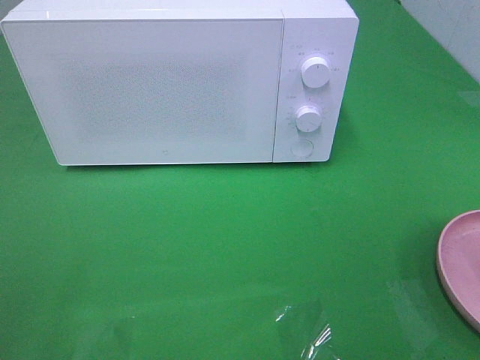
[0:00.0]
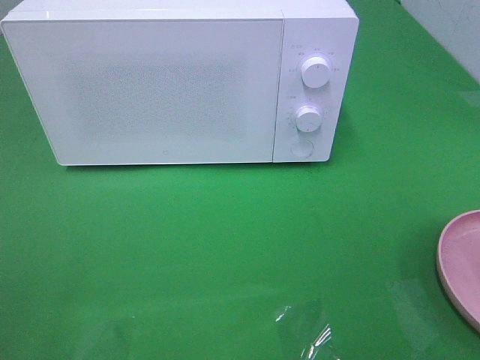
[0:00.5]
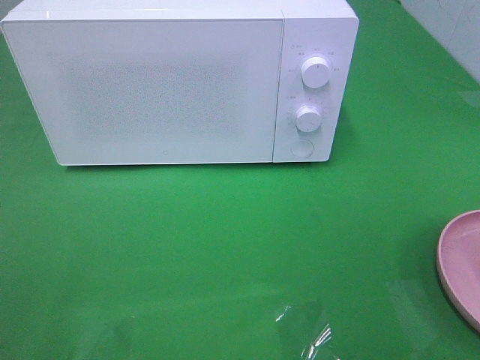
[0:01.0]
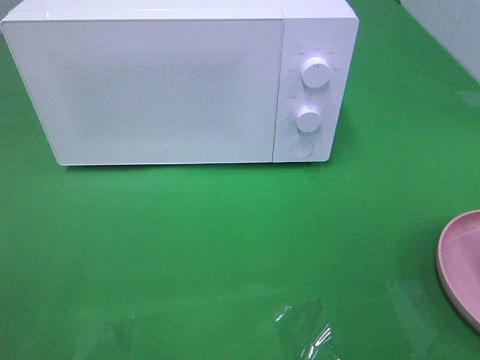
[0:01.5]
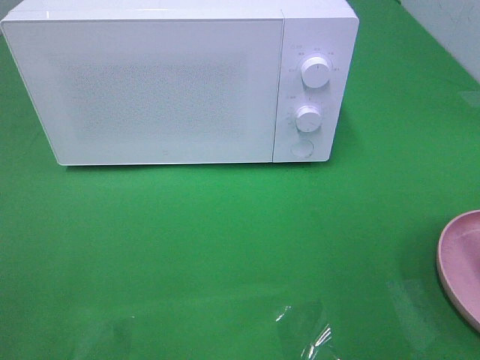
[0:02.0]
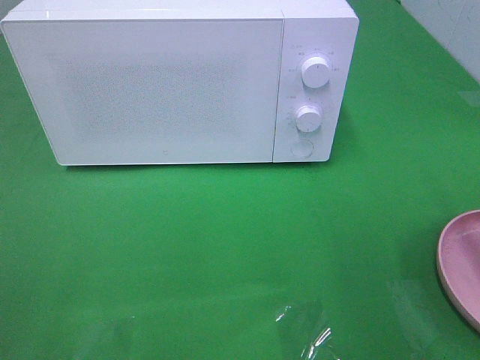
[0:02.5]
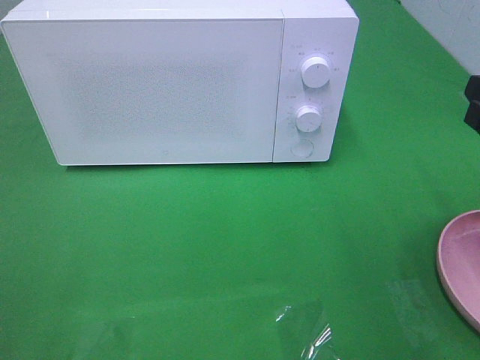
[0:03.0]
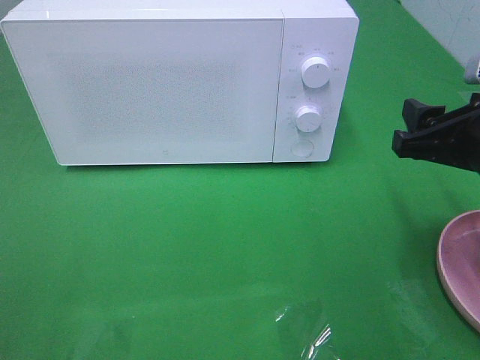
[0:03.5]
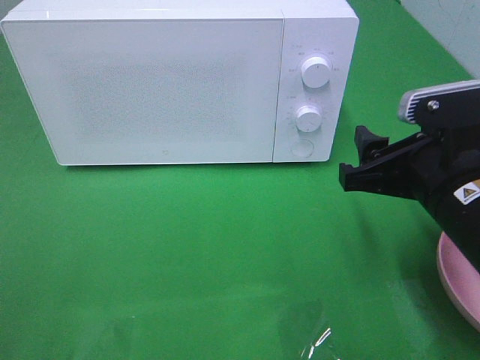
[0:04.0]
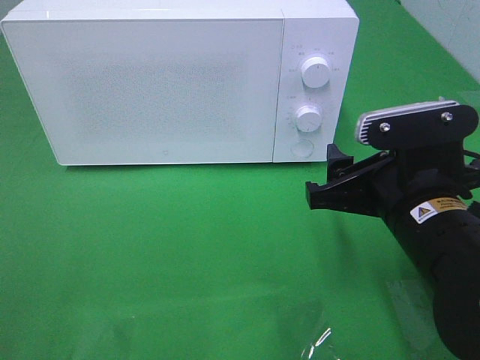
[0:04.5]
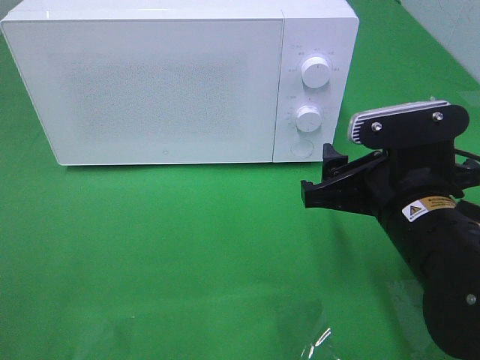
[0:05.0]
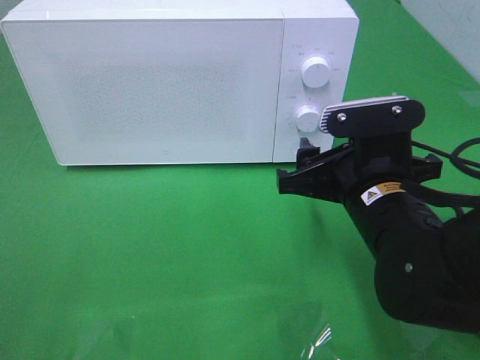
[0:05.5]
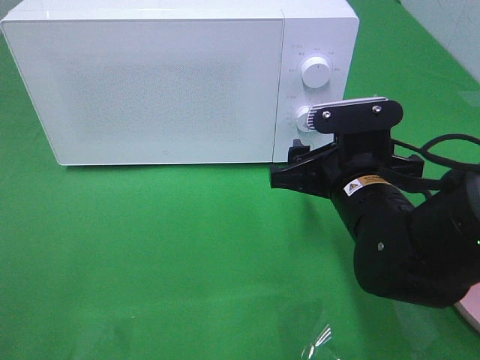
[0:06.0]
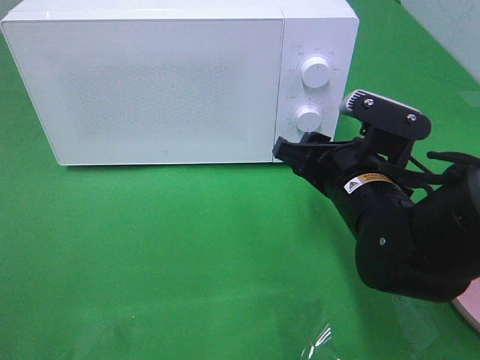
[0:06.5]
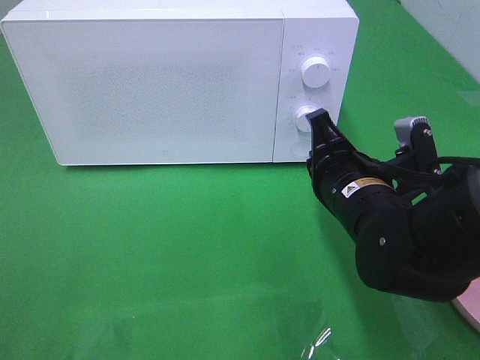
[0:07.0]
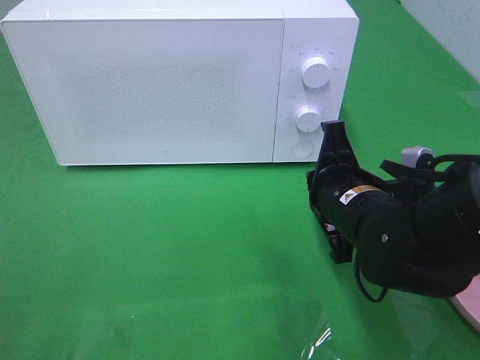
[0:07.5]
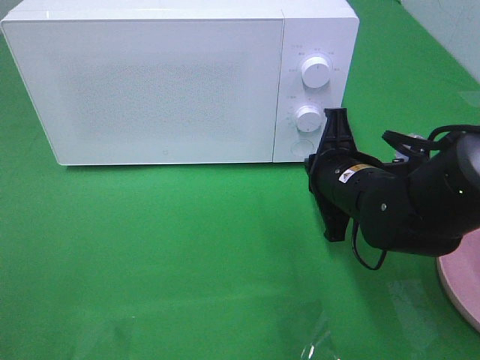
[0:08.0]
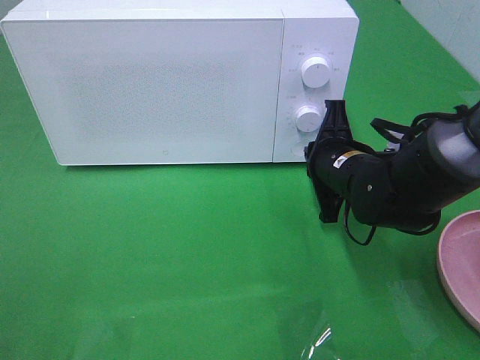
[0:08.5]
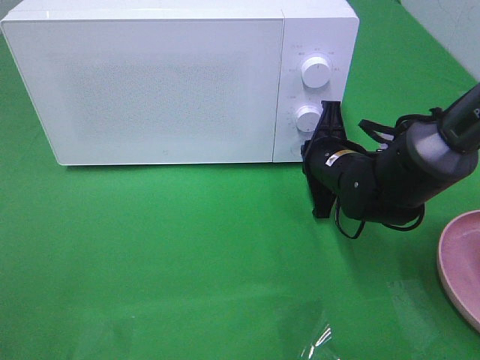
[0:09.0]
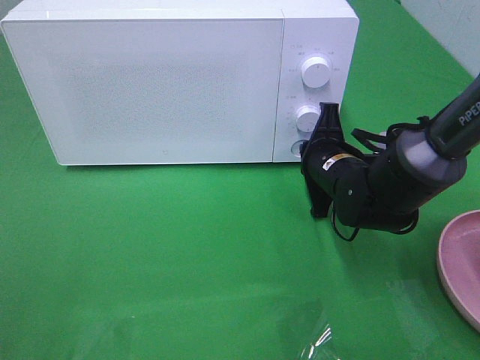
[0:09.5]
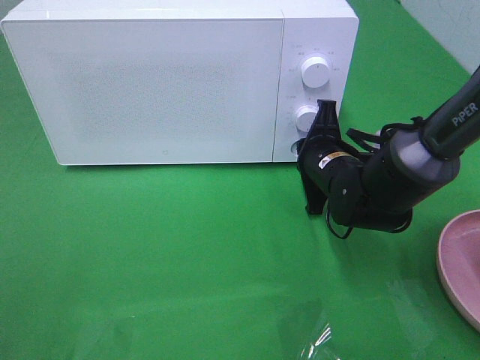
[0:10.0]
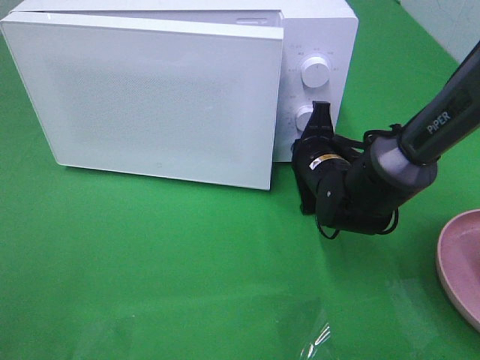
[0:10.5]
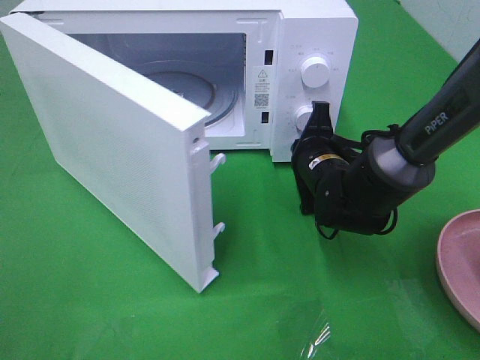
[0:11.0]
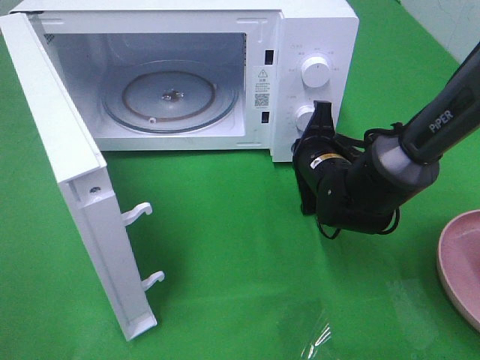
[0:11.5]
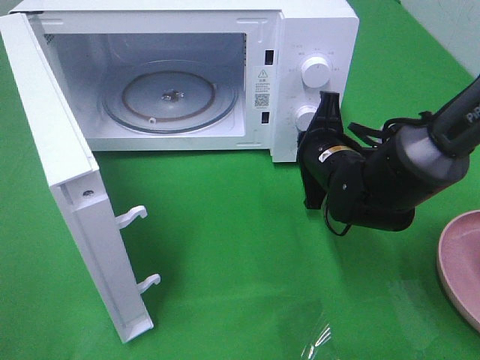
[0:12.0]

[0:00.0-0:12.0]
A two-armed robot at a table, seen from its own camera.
Task of the whole recording: Heat the burger.
0:02.0 to 0:04.0: The right gripper goes some 15 cm downward, to the left and forward.
0:04.0 to 0:06.0: The right gripper moves to the left, roughly 5 cm.
0:06.0 to 0:08.0: The right gripper closes its fingers.
0:08.0 to 0:10.0: The right gripper moves forward, about 5 cm.

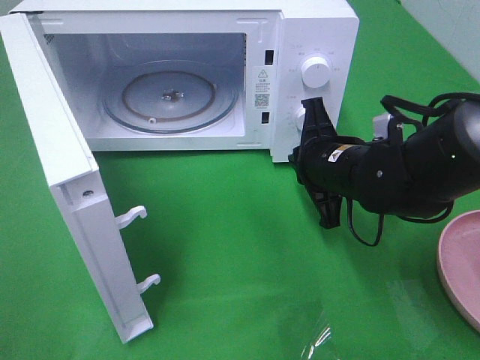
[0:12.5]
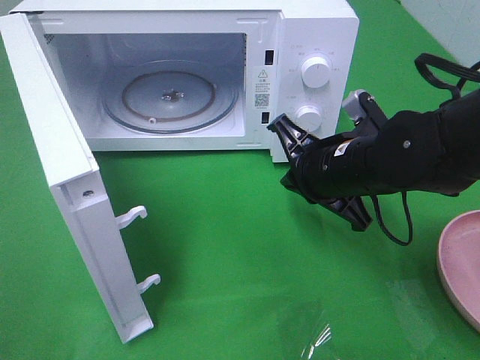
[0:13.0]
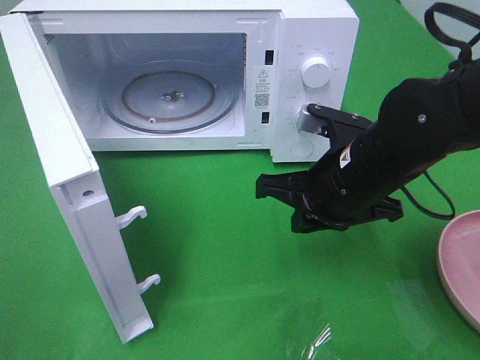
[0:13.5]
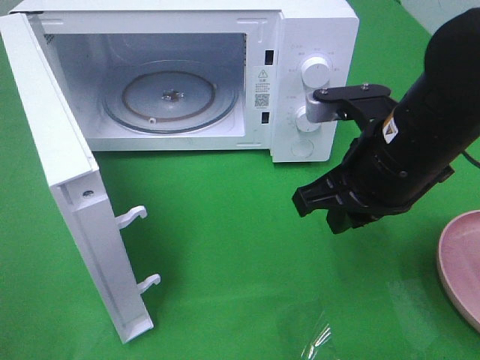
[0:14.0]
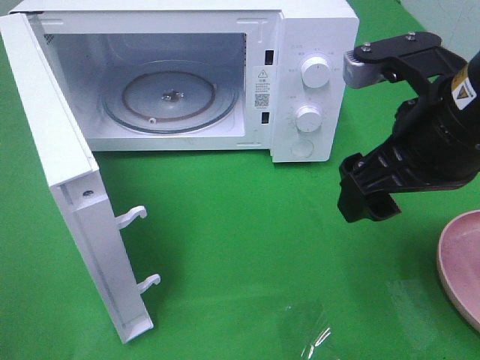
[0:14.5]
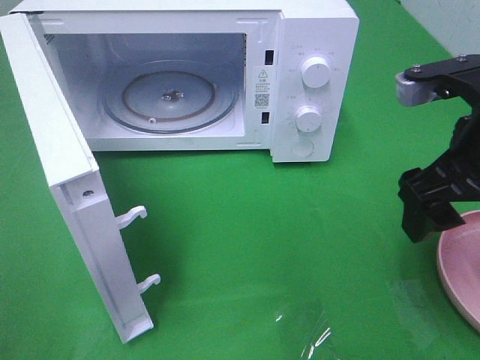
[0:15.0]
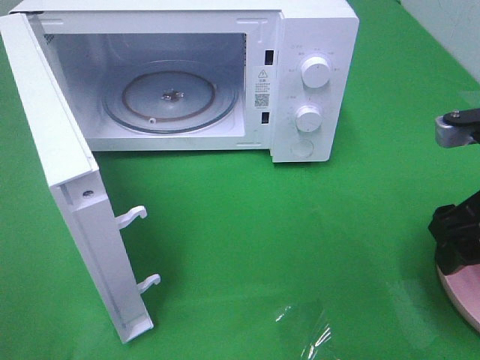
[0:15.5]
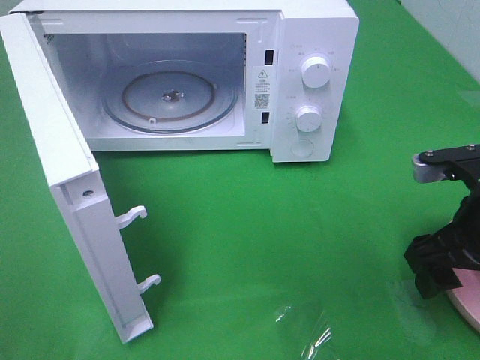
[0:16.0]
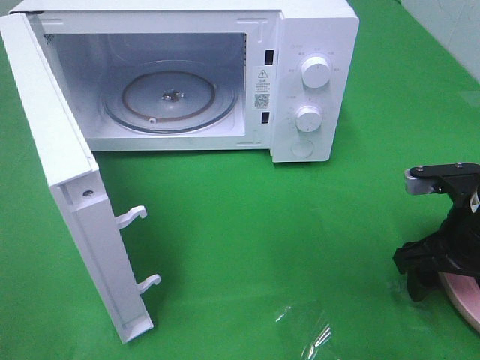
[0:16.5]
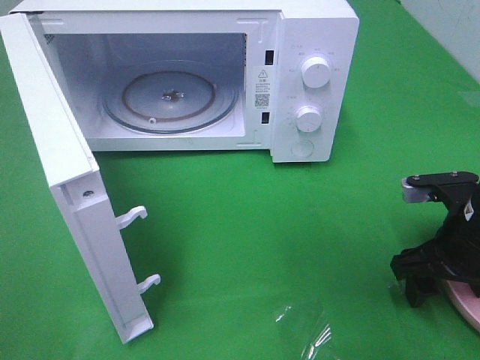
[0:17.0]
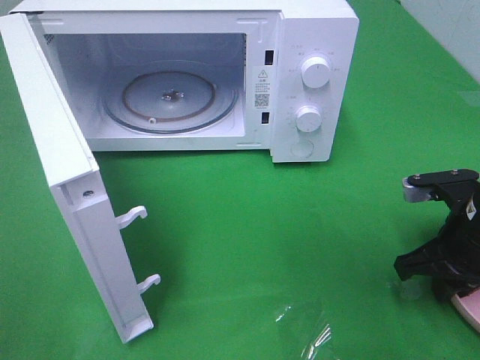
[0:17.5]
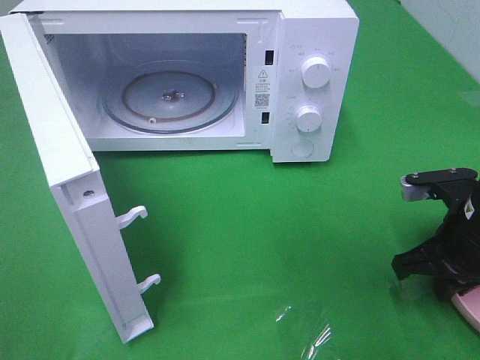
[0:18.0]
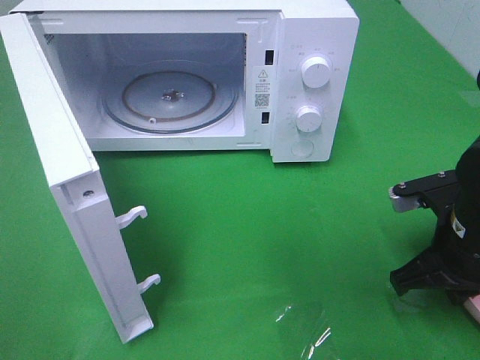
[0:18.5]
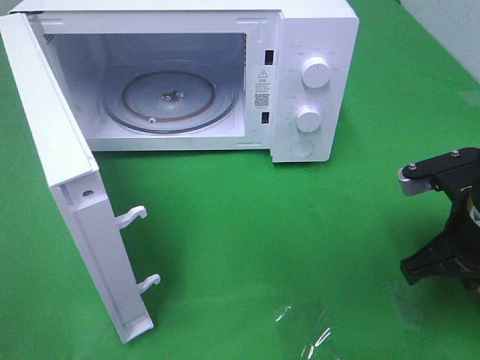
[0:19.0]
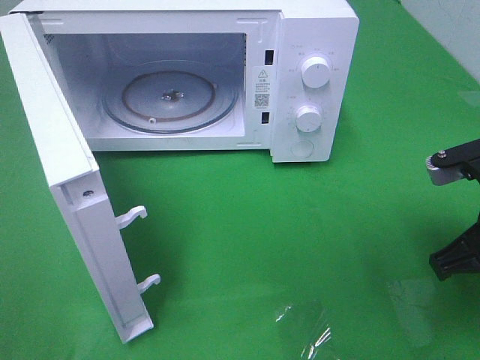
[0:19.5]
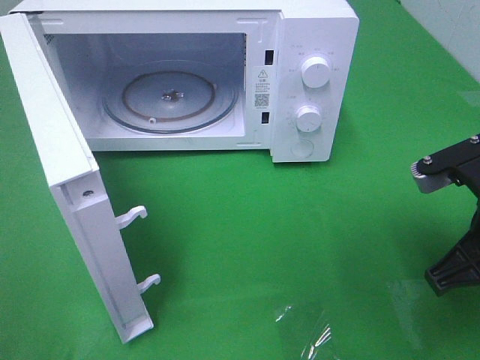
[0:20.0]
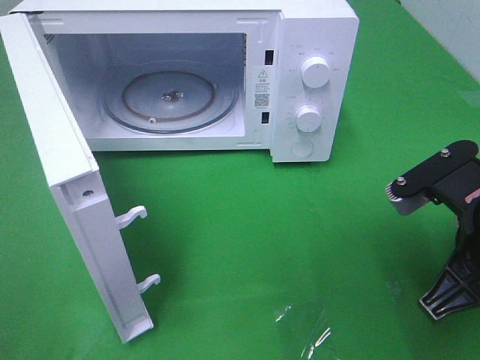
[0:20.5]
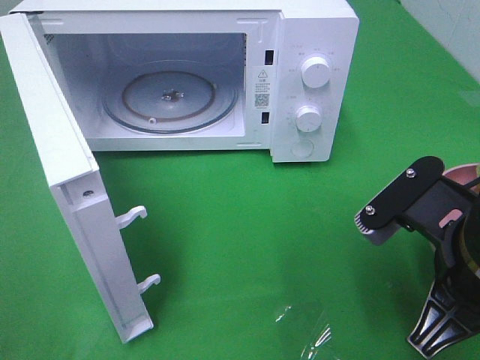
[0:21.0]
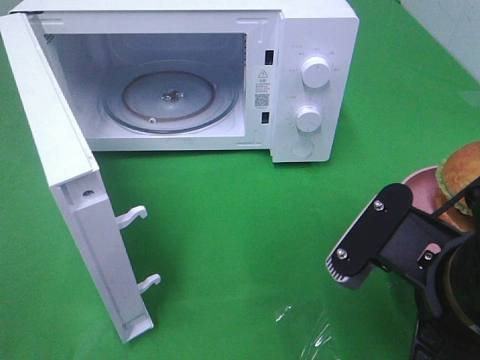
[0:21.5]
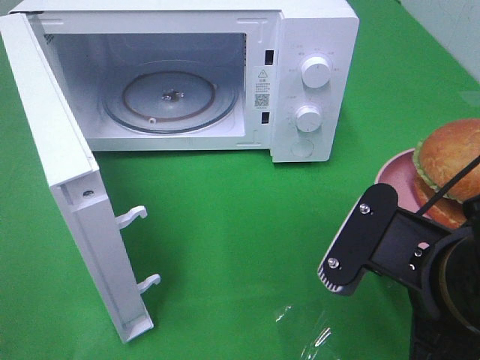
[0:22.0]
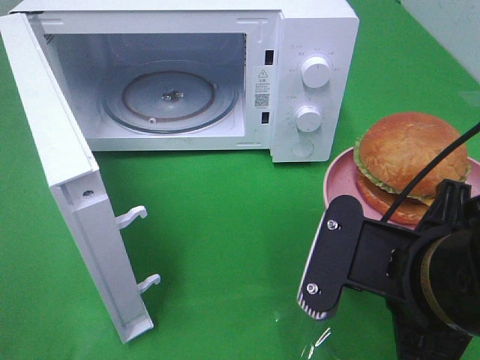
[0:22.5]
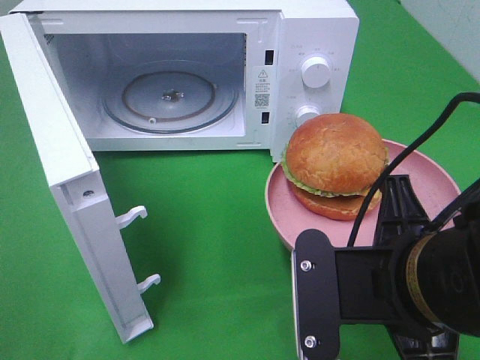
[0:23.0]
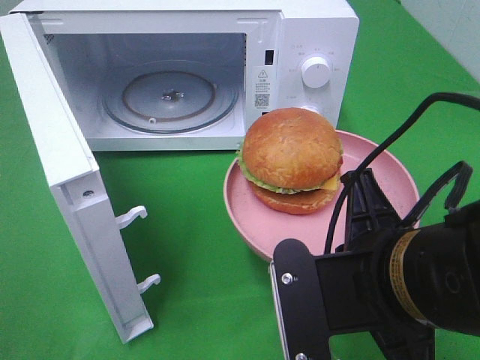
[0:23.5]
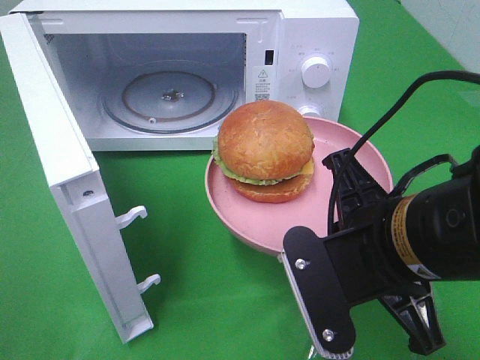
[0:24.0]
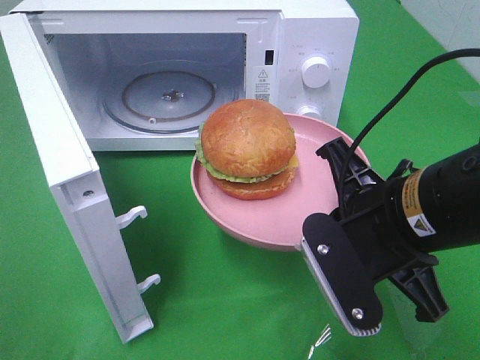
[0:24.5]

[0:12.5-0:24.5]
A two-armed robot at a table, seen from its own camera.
Task of the whole recording: Heat the burger.
Step, 0:13.0 to 0:18.5: Right hand: grab the plate with the hamburger.
0:12.5 to 0:14.5: The right gripper moves upward and backward, about 15 cm, and opens up.
0:14.5 to 0:16.5: The right gripper is displaced downward and to the right by roughly 15 cm.
0:16.5 to 0:18.5: The right gripper closes.
0:18.5 to 0:20.5: The right gripper travels upward and backward by some 10 cm.
0:20.5 to 0:22.5: The right gripper shifts some 10 cm to the left and backward.
0:22.5 to 0:24.5: The right gripper heads forward, covering approximately 5 cm.

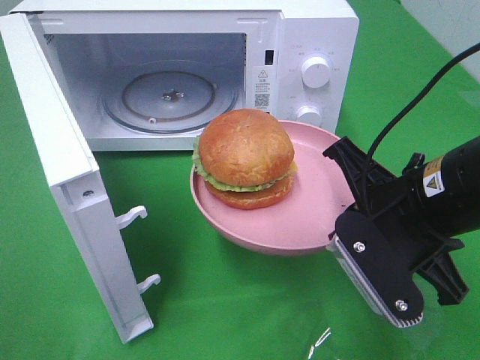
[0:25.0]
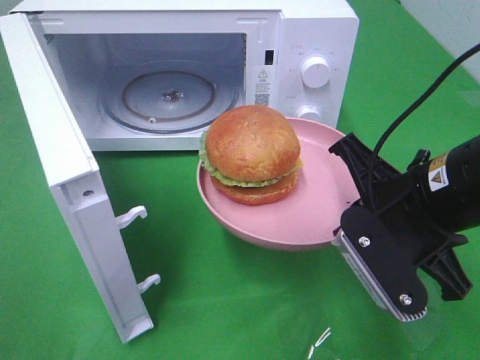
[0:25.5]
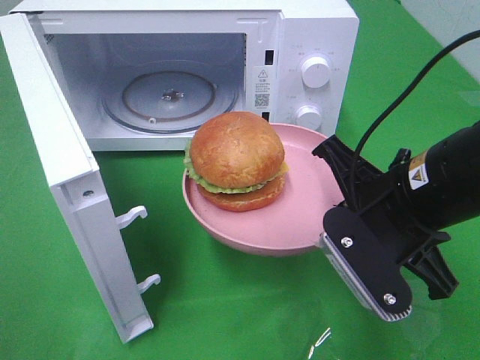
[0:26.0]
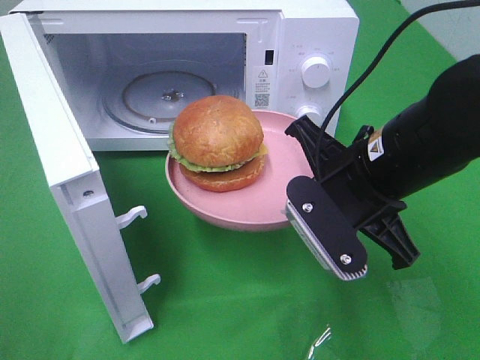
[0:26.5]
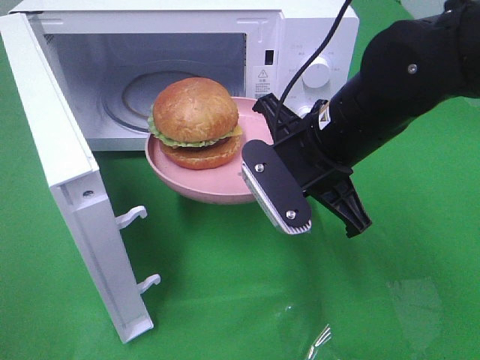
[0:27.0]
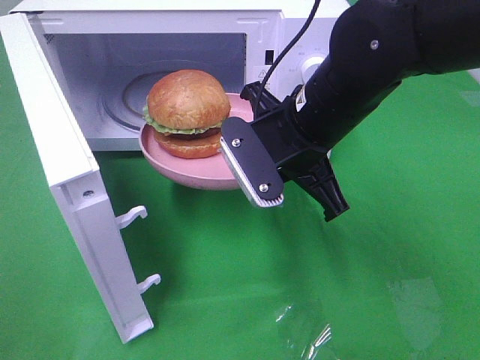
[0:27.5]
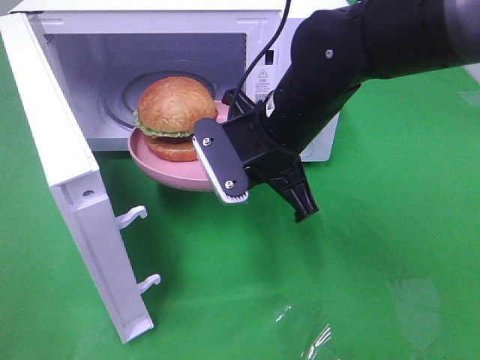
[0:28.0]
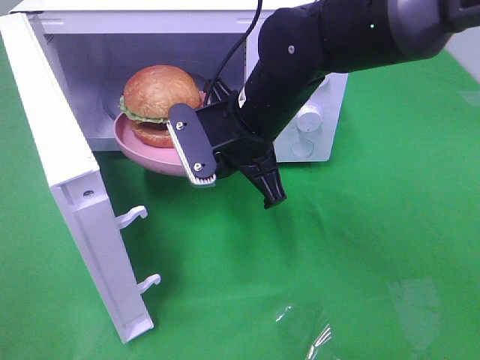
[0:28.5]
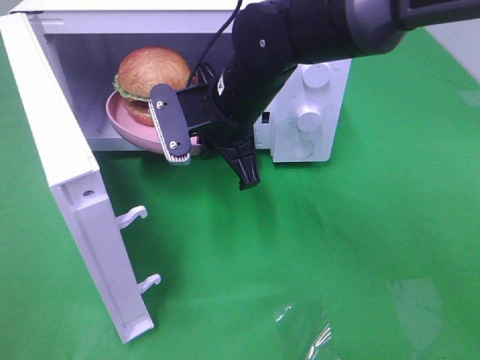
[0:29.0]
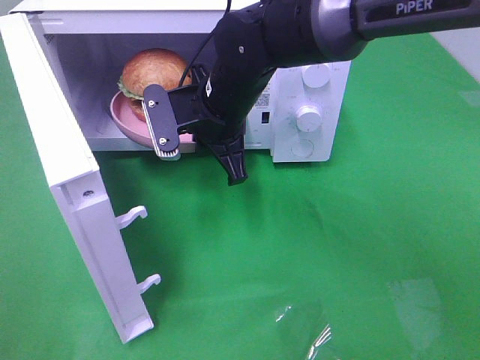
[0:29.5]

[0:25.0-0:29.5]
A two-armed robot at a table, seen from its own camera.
Task of the whole recording: Heat the burger.
0:25.0 to 0:27.0: The right gripper heads forward and to the left, covering approximately 10 cm.
0:27.0 to 0:29.5: The right gripper is displaced to the left and forward by roughly 15 cm.
